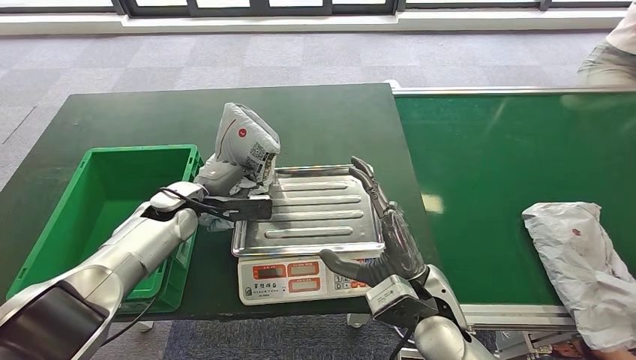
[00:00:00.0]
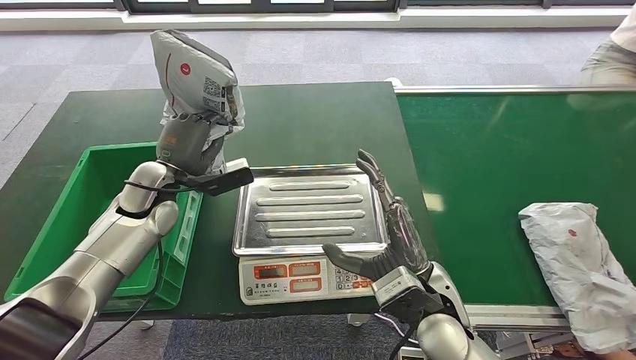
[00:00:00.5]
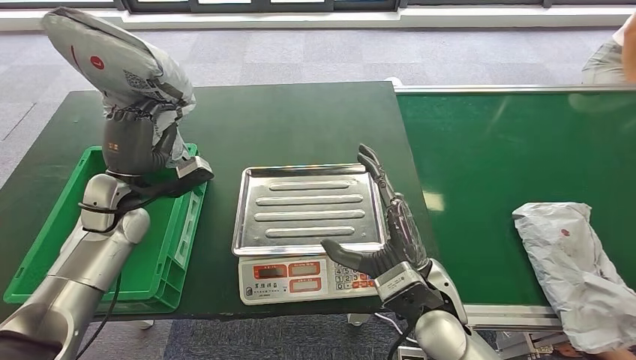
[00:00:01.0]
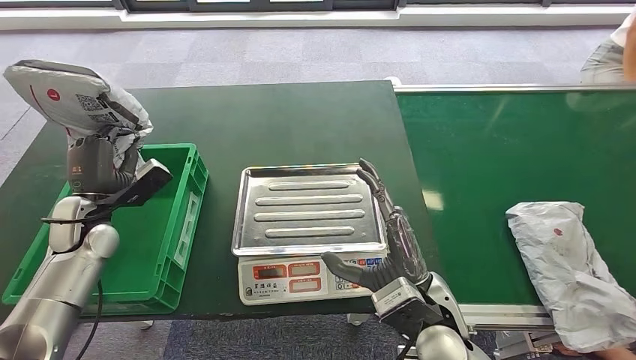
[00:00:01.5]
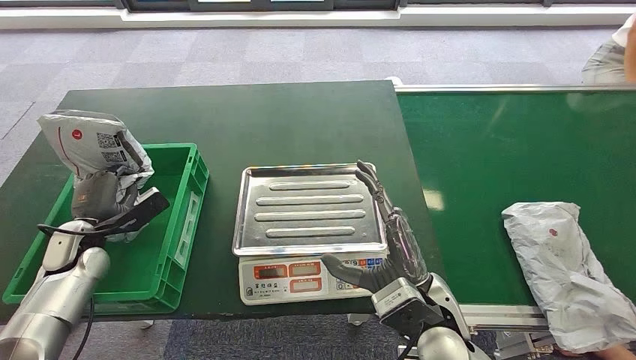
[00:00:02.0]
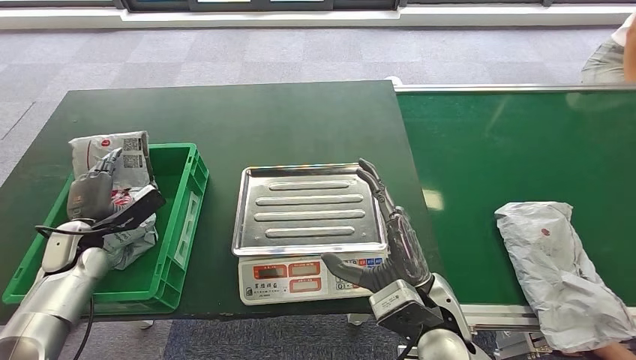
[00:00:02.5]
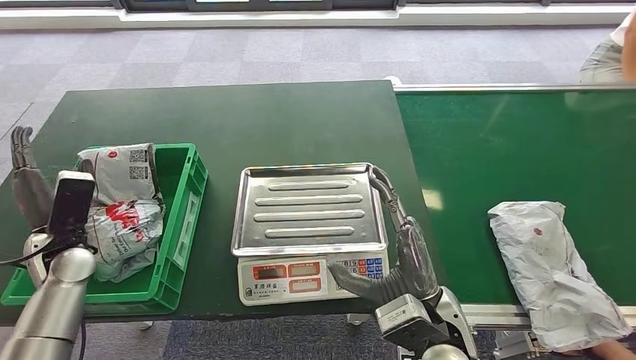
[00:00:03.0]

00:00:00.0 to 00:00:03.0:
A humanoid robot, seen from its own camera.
Step, 00:00:01.0 to 00:00:03.0: Put the parcel inside the courier box.
00:00:01.5 to 00:00:03.0: The left hand moves some 5 cm.
